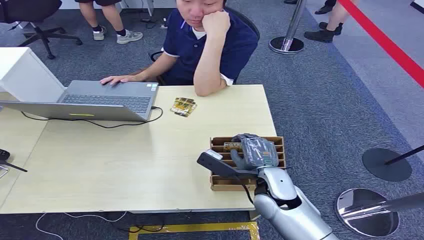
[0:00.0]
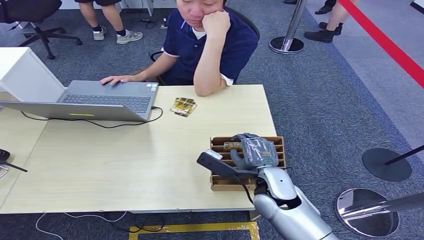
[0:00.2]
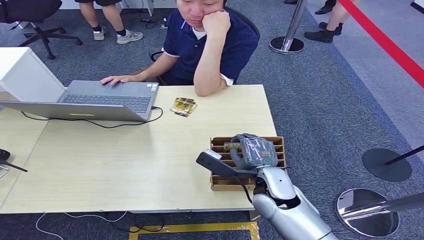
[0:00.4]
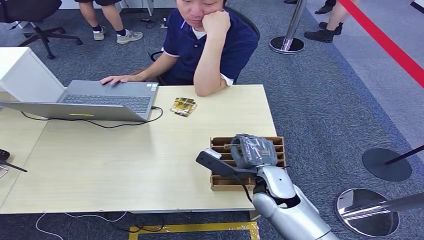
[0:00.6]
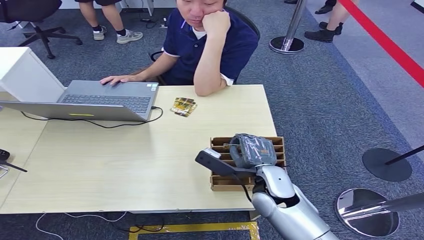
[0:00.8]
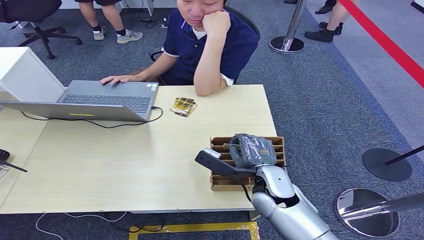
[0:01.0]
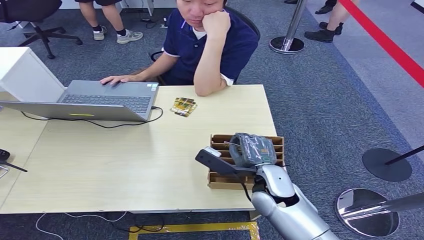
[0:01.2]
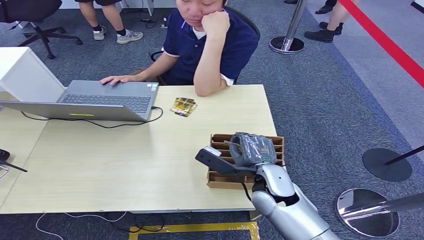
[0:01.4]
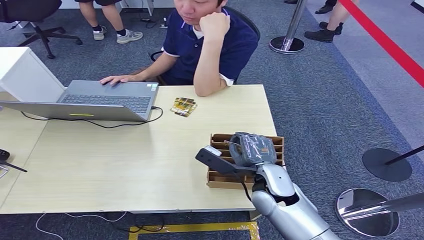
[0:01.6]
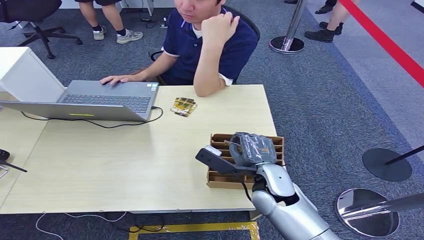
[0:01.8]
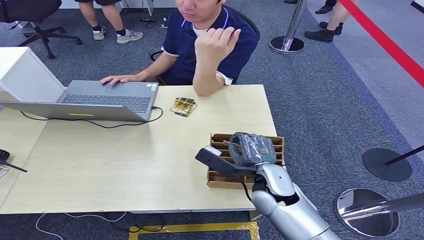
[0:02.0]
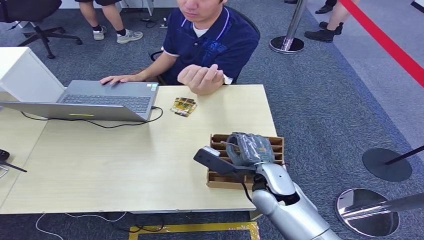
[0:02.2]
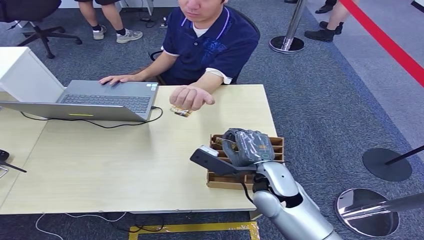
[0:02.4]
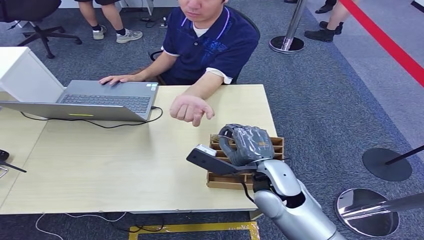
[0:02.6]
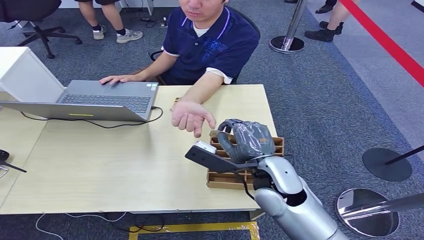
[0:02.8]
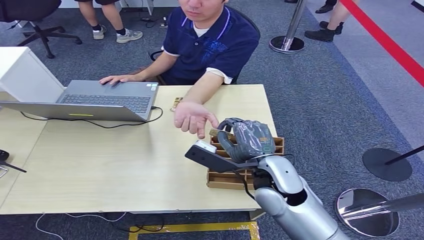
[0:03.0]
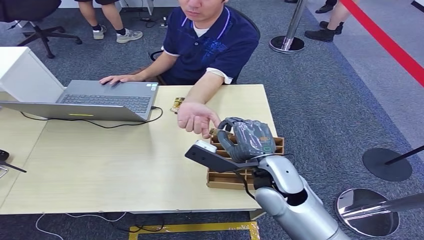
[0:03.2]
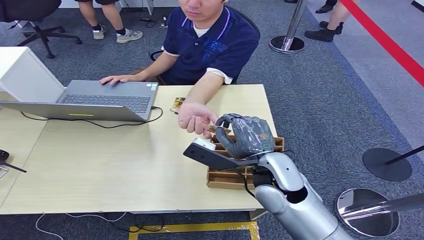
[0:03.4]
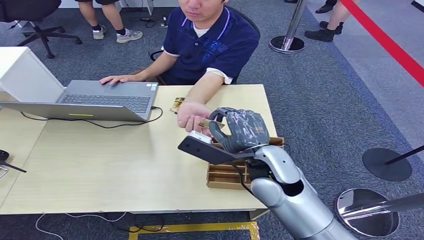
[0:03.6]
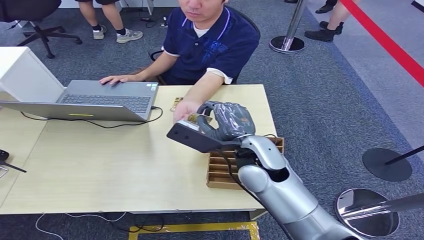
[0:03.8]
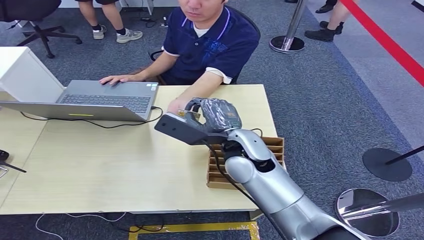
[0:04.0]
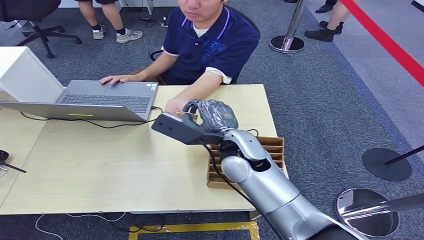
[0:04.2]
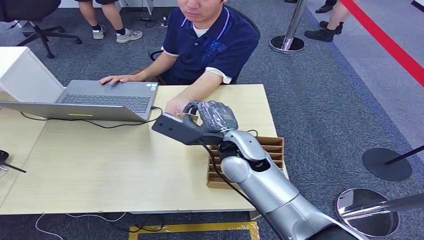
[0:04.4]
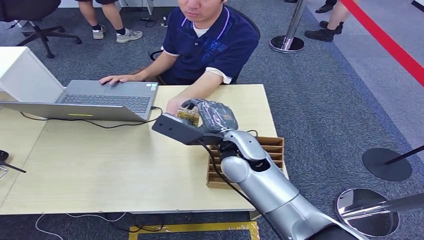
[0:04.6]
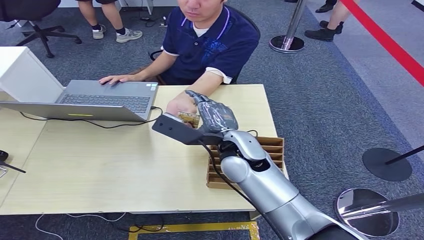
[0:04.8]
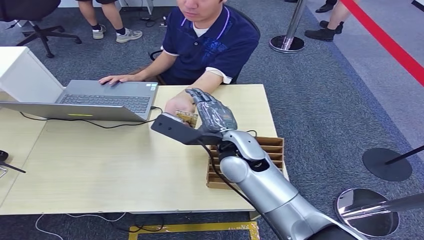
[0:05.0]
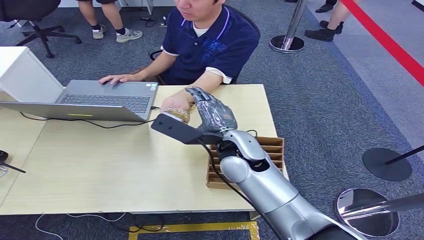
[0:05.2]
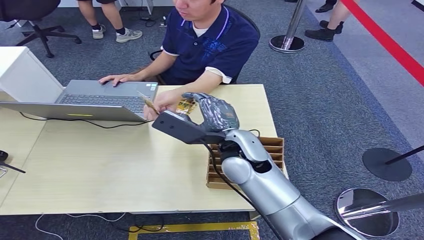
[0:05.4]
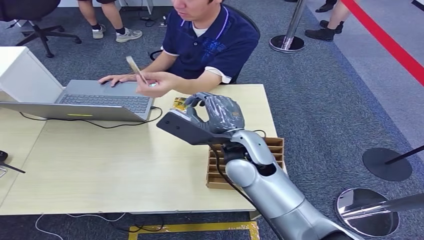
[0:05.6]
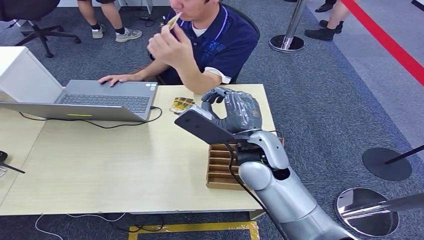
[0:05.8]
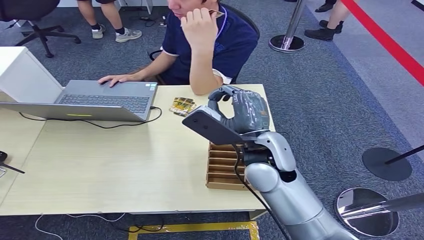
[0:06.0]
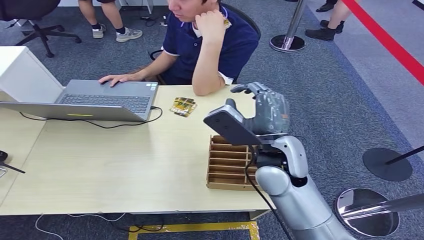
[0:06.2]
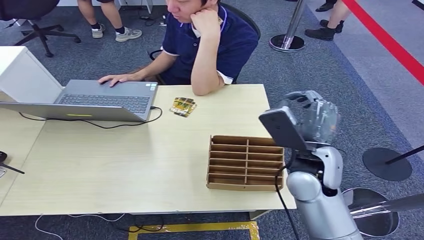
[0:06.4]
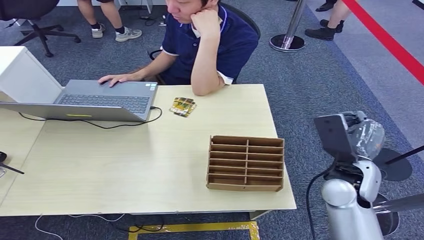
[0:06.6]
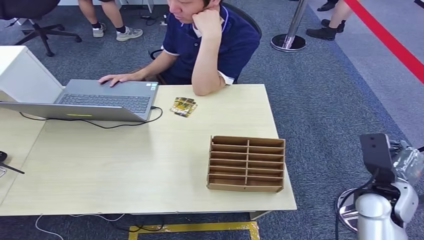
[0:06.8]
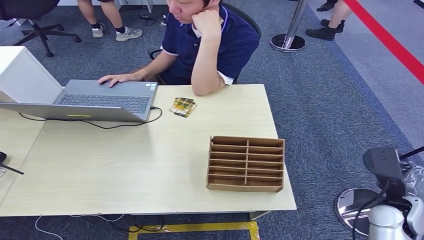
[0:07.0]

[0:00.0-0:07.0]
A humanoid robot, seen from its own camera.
Step, 0:00.0 to 0:02.8: Pick up the key card from the card box.
Step, 0:03.0 to 0:06.8: Hand the key card to the target.
0:01.4 to 0:02.8: The right hand shifts some 5 cm upward.
0:02.8 to 0:04.2: The right hand moves forward and to the left, approximately 10 cm.
0:04.2 to 0:05.6: The hands move only a little.
0:05.6 to 0:07.0: The right hand shifts some 35 cm to the right and downward.

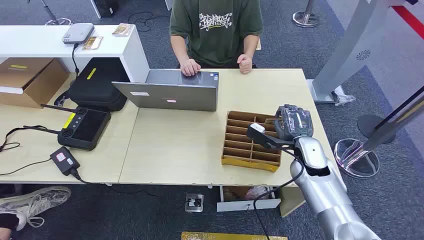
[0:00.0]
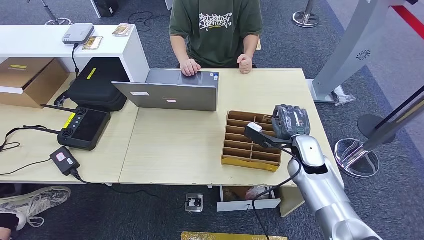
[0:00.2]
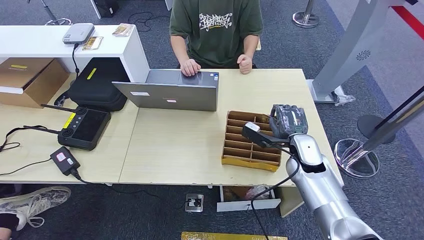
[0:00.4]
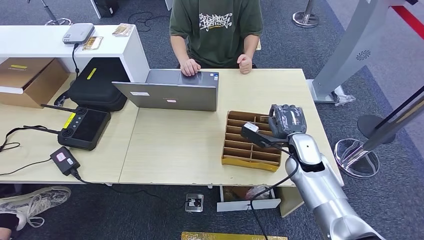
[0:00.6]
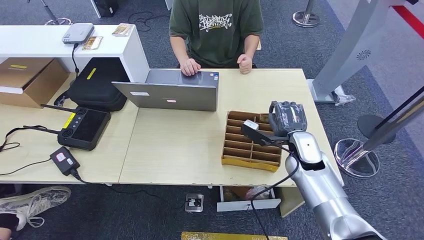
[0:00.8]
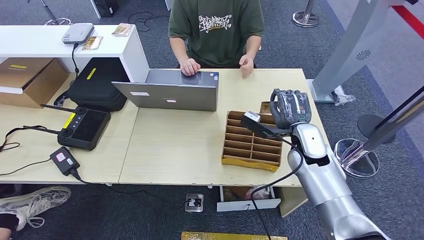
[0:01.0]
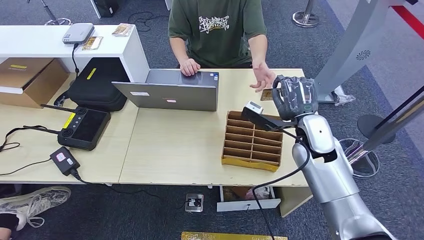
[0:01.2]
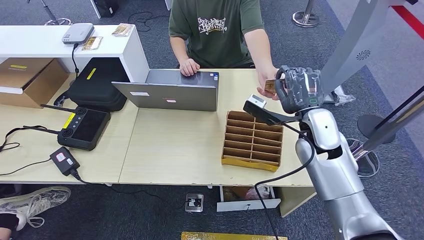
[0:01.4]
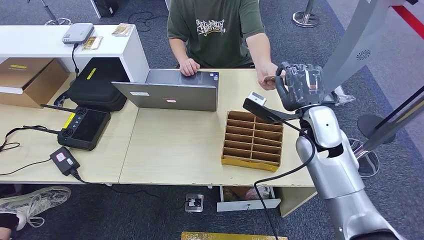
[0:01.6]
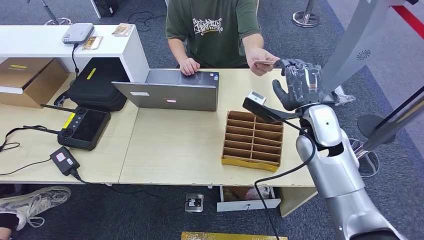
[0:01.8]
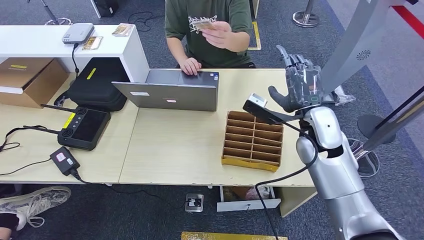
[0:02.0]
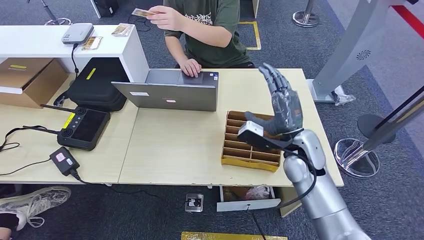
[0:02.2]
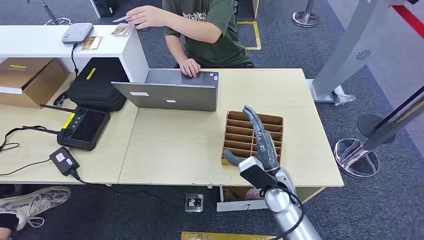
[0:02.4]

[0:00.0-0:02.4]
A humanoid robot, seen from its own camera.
Step, 0:00.0 to 0:01.4: Pick up the key card from the card box.
Step, 0:01.6 to 0:02.2: Hand the key card to the target.
0:01.2 to 0:02.4: The right hand goes approximately 15 cm downward, backward and to the left.

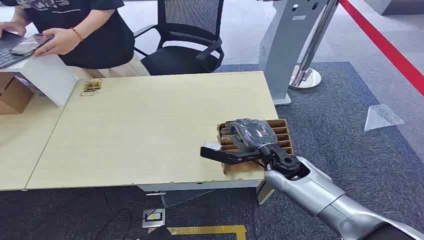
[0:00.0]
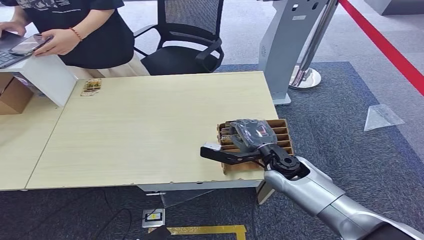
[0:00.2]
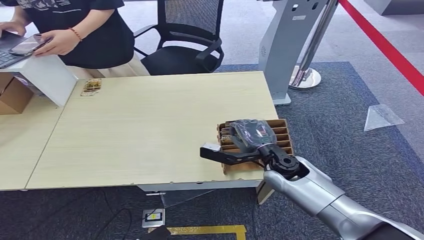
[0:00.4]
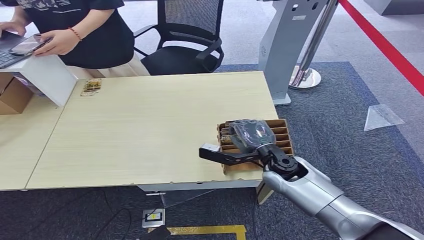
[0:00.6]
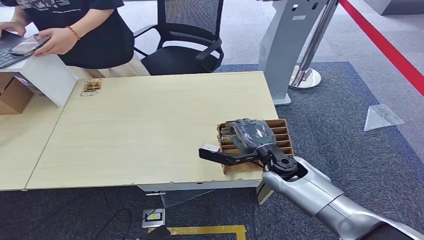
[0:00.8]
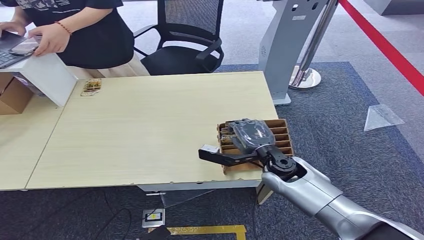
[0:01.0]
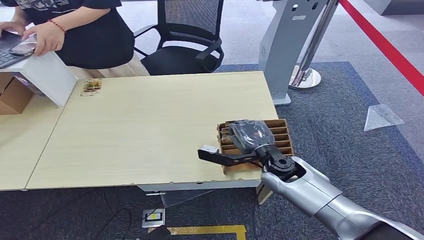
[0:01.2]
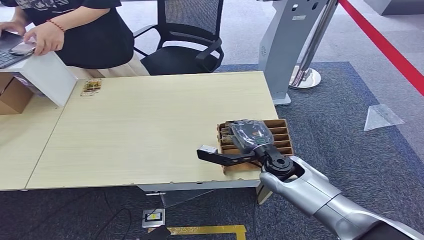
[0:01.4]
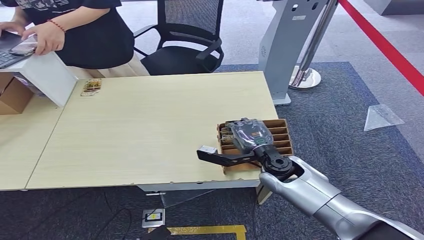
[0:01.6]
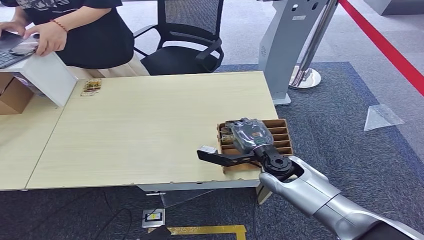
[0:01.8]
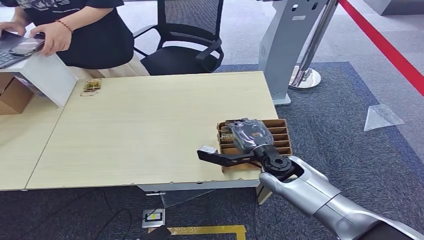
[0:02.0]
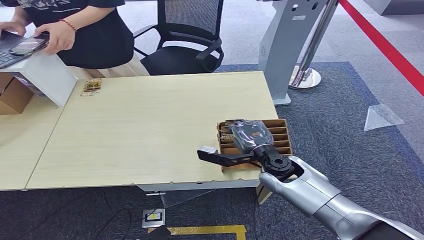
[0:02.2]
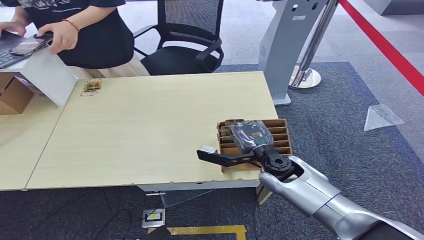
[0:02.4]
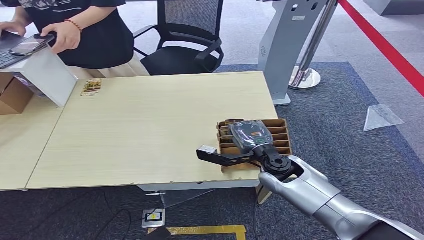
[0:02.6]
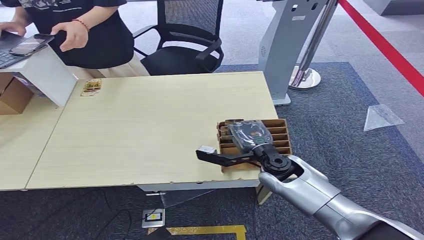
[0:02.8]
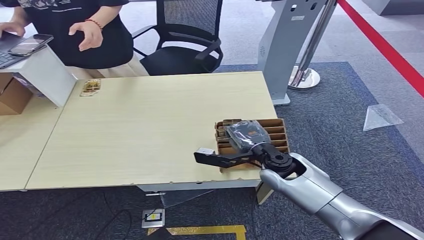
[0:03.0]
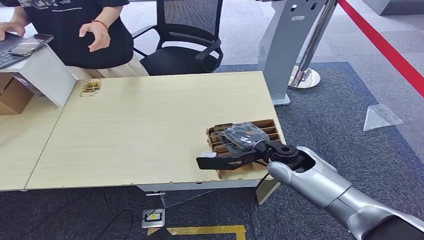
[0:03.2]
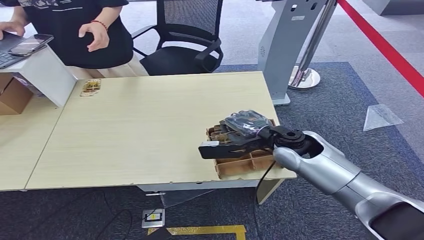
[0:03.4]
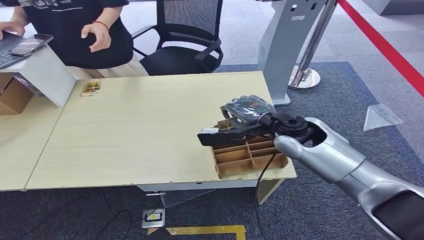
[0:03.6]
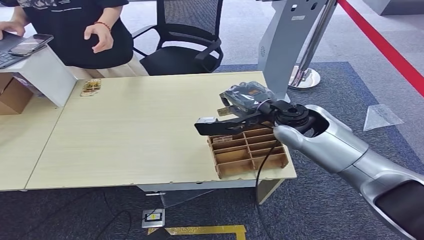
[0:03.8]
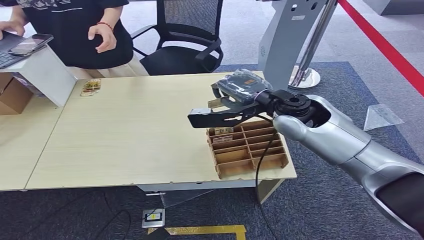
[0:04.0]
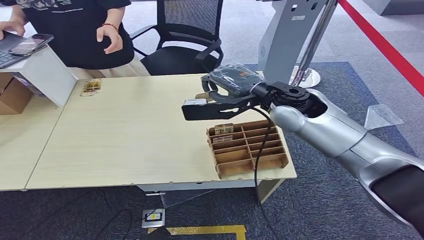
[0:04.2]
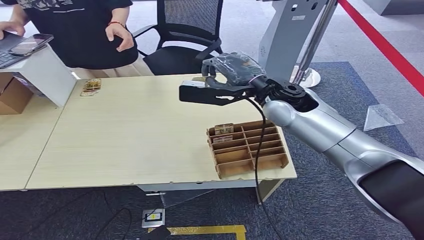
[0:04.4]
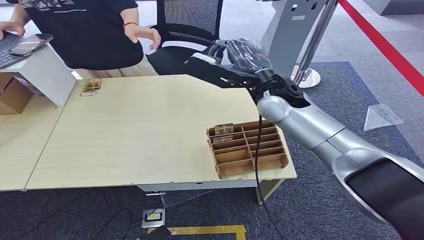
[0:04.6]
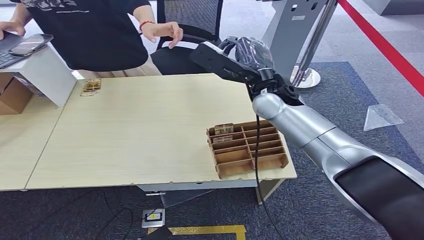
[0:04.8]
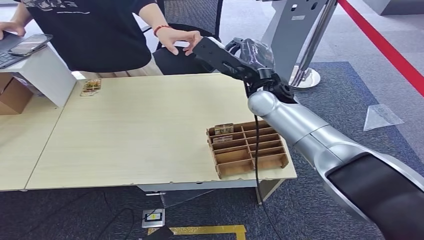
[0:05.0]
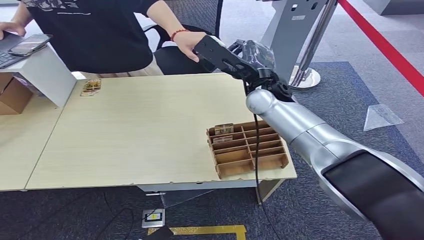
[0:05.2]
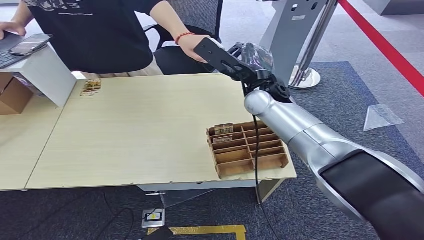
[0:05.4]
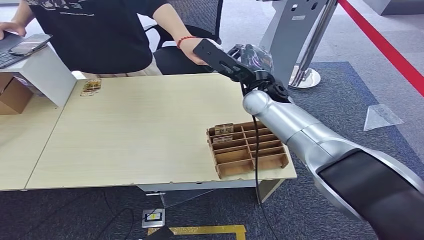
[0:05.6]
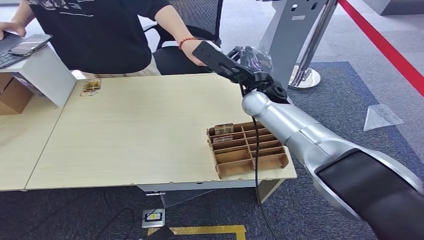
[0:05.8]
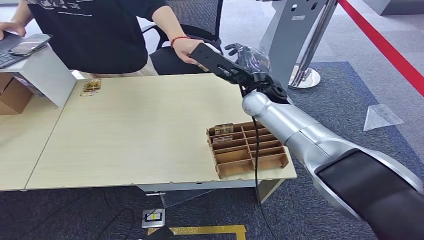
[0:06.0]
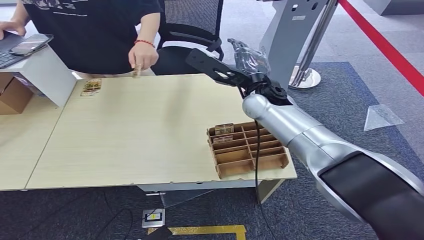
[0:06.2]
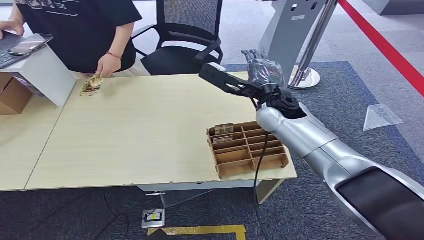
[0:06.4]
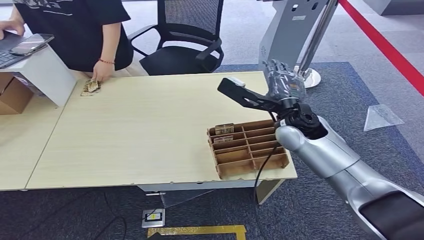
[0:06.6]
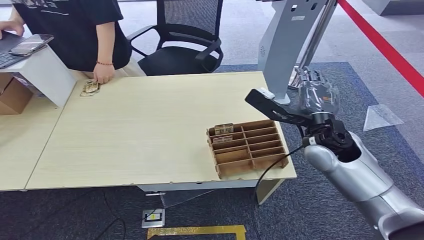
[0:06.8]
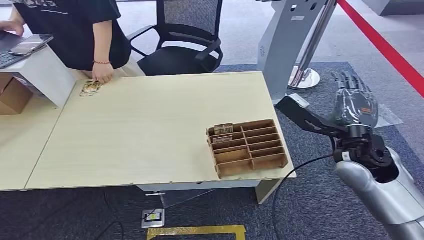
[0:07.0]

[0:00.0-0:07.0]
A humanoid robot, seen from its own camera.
Step, 0:00.0 to 0:04.2: Pick up the key card from the card box.
Step, 0:04.4 to 0:06.8: Hand the key card to the target.
0:01.4 to 0:02.8: The two hands keep their place.
